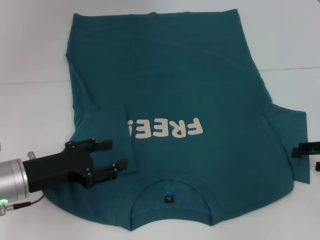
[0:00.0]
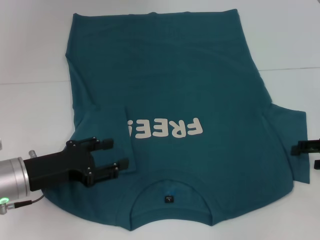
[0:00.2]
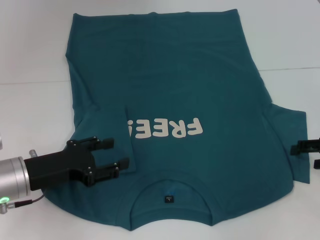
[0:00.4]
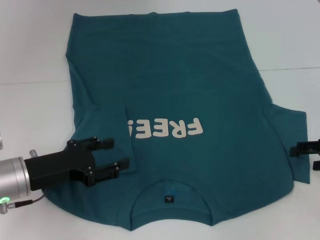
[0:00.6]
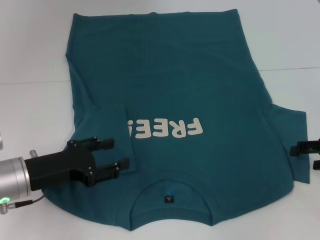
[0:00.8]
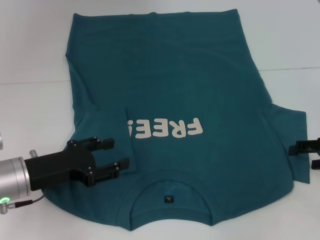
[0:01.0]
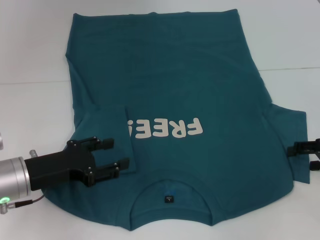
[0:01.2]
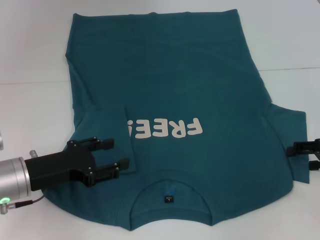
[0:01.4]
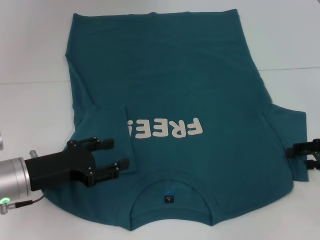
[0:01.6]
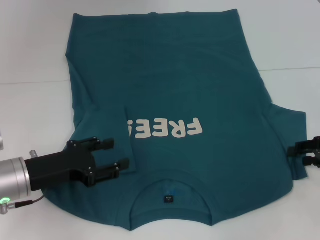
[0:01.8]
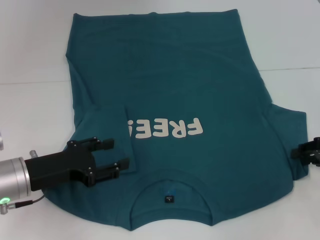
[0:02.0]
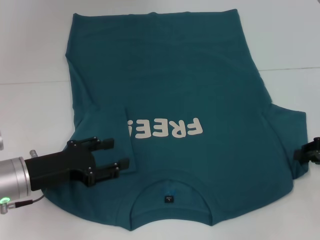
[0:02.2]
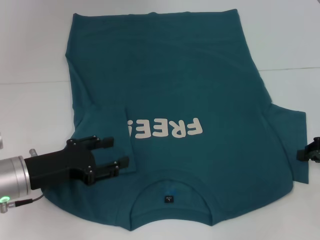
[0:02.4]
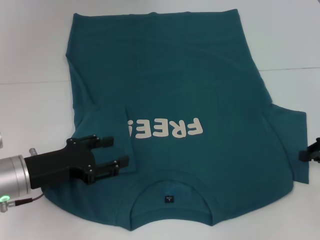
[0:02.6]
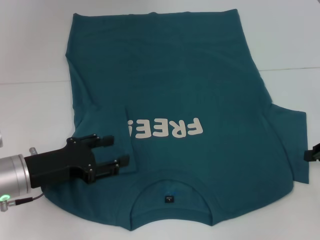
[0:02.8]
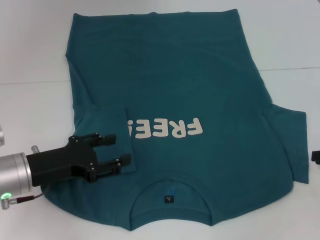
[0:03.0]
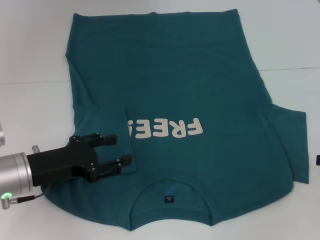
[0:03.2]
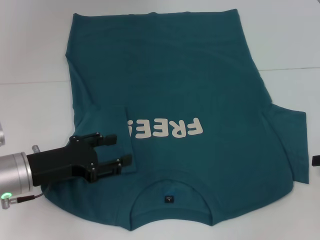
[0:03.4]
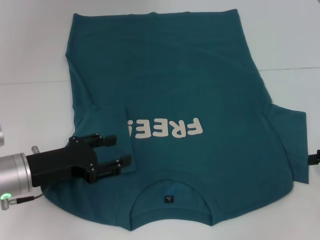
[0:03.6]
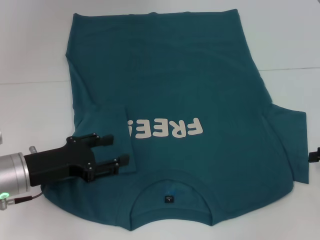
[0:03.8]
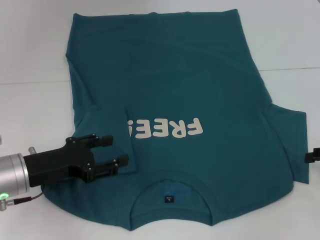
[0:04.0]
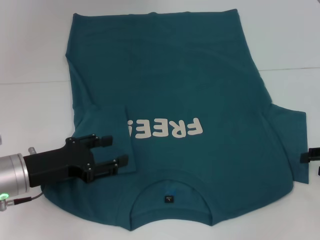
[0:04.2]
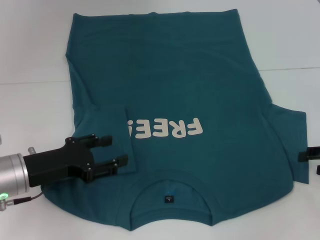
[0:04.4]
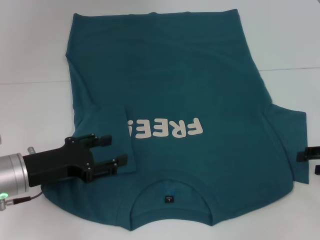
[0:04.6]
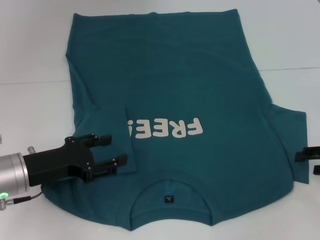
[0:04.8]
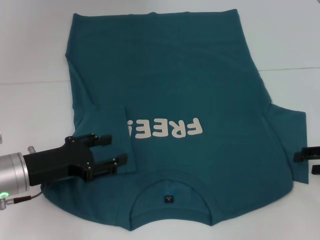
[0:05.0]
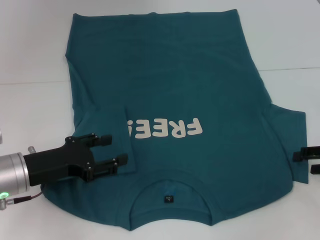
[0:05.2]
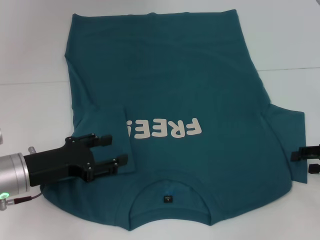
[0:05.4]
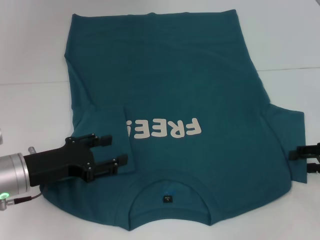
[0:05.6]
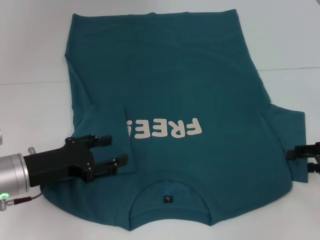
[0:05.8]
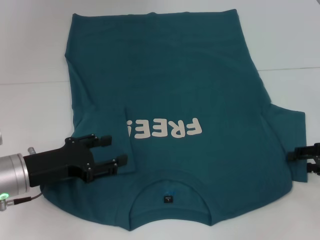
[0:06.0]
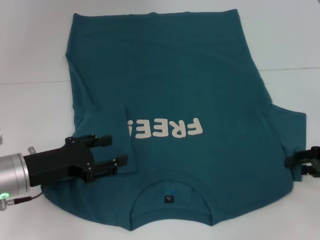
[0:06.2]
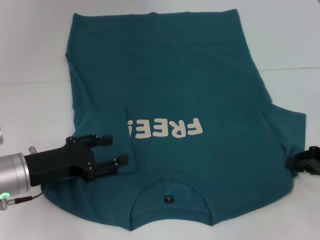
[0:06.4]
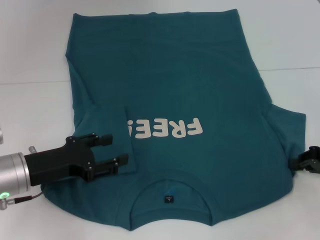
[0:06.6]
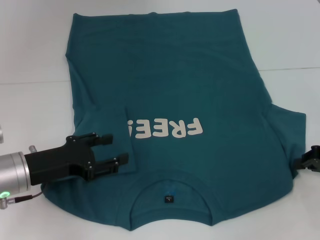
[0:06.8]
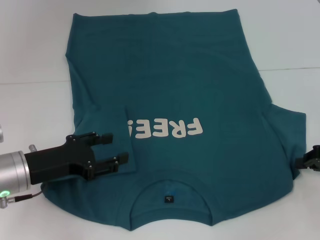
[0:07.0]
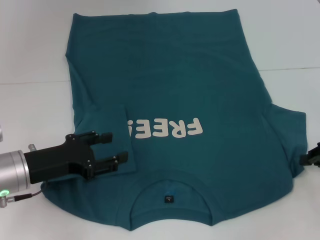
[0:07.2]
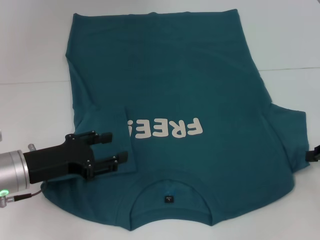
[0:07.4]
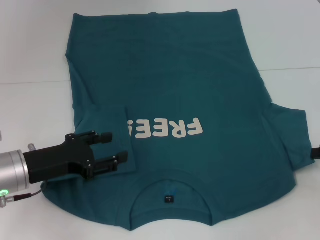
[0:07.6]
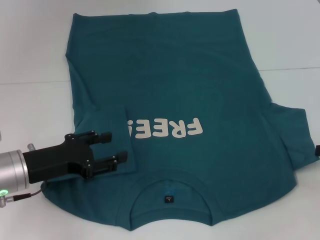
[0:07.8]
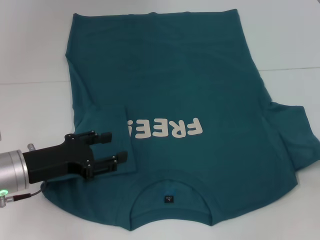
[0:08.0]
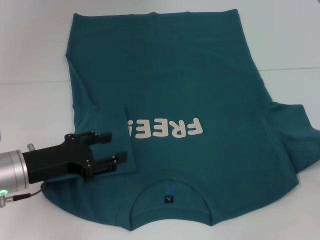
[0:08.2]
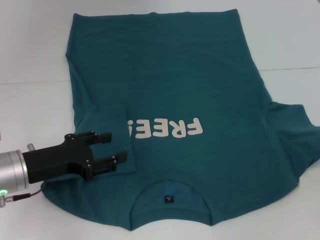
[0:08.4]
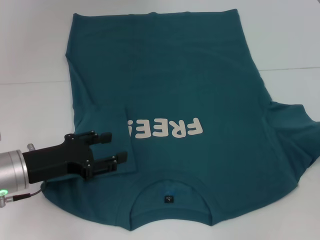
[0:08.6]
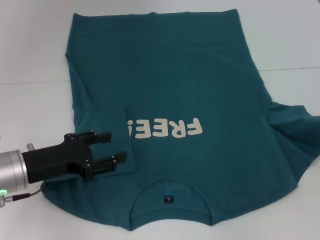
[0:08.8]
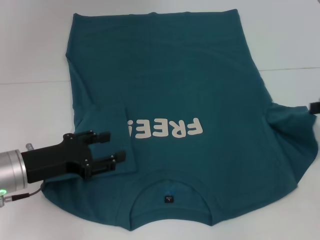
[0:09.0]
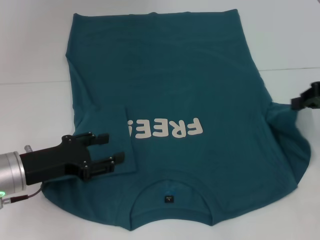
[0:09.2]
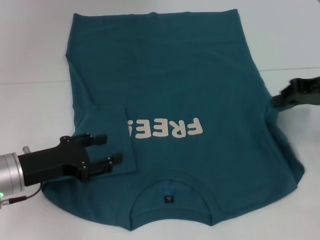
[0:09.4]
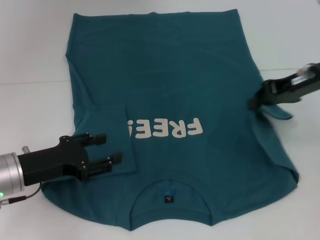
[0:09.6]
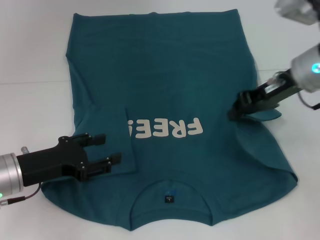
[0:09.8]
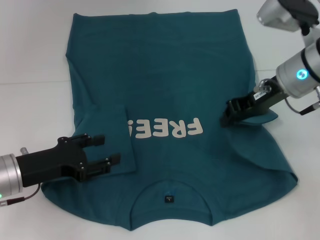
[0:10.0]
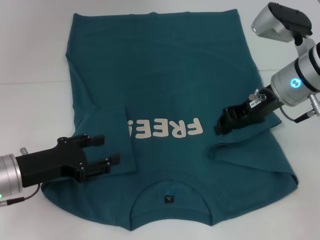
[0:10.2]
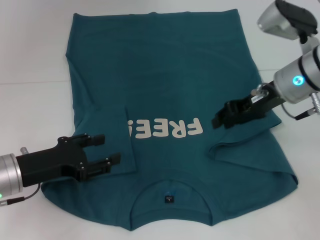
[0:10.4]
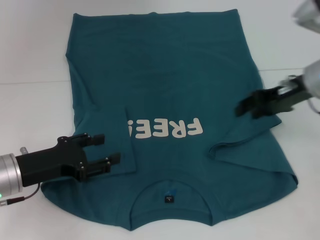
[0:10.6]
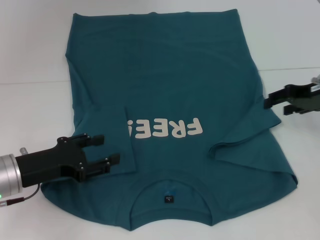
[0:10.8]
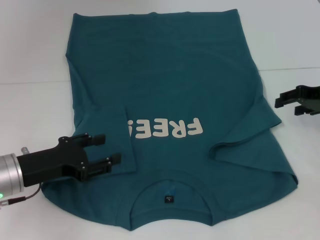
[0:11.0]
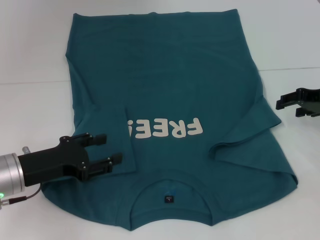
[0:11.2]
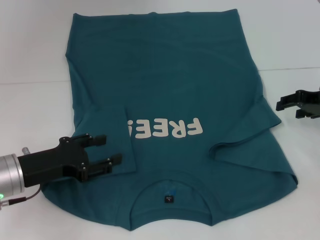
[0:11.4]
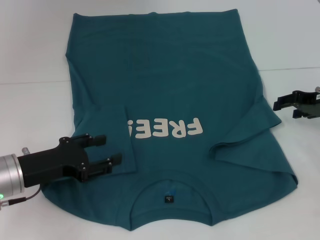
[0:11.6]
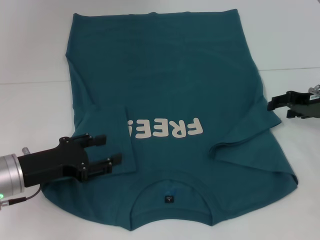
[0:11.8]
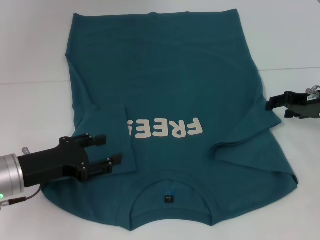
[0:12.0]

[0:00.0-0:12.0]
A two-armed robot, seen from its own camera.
0:00.0 to 0:01.6: Both grippers stay about where they are.
0:01.6 to 0:03.0: The right gripper closes its fingers.
0:04.4 to 0:06.0: The grippers stay close to where they were, moving slightly.
0:06.0 to 0:07.6: The right gripper closes.
0:07.6 to 0:09.0: The right gripper moves upward, about 10 cm.
0:09.0 to 0:10.4: The right gripper goes some 15 cm to the left.
0:10.4 to 0:12.0: The right gripper travels to the right and downward by about 10 cm, and opens up.

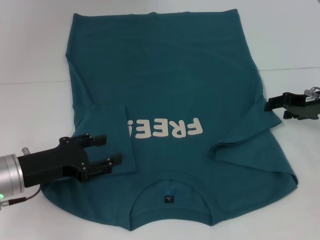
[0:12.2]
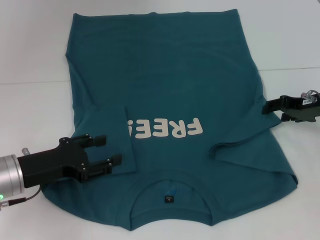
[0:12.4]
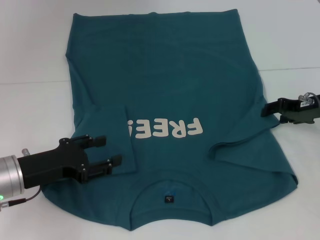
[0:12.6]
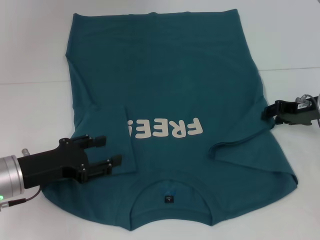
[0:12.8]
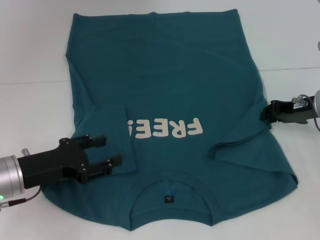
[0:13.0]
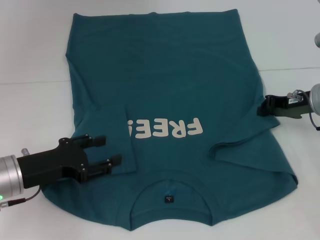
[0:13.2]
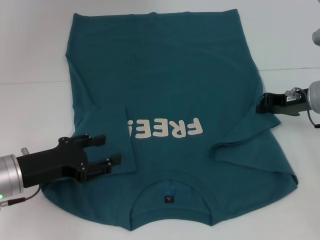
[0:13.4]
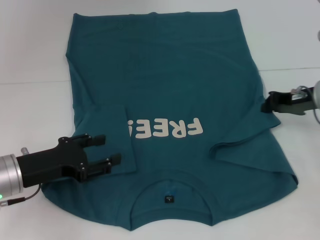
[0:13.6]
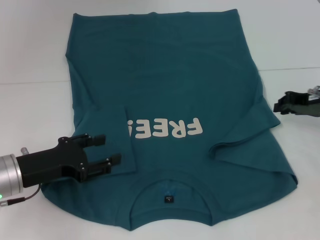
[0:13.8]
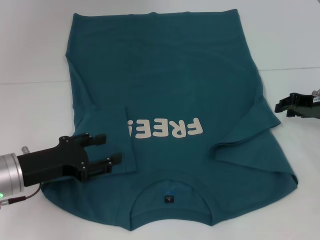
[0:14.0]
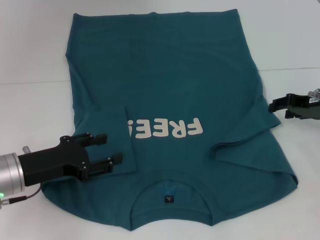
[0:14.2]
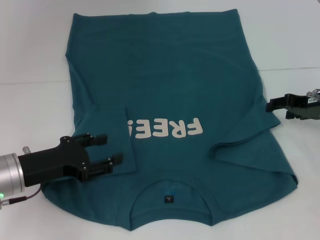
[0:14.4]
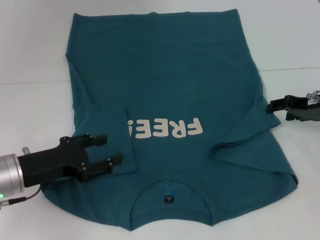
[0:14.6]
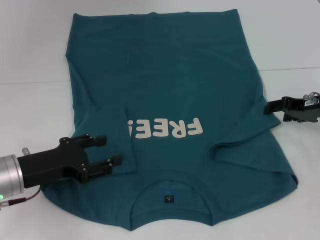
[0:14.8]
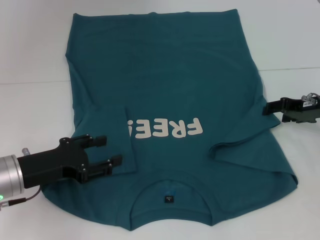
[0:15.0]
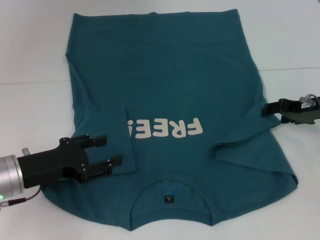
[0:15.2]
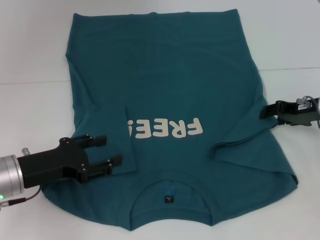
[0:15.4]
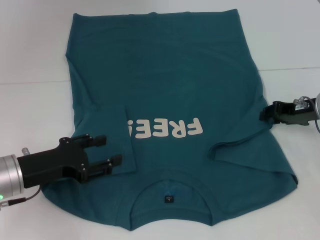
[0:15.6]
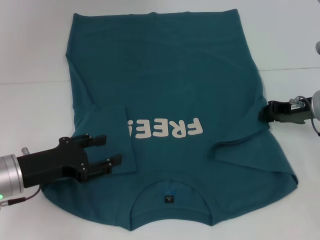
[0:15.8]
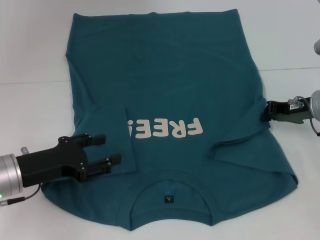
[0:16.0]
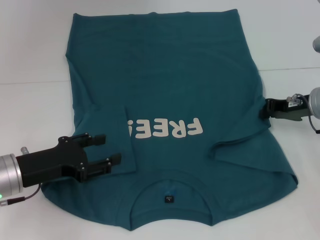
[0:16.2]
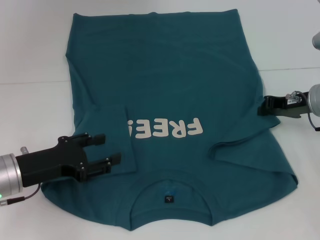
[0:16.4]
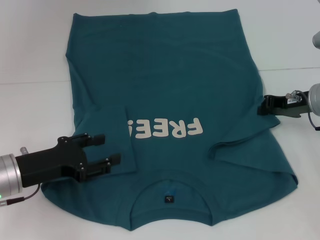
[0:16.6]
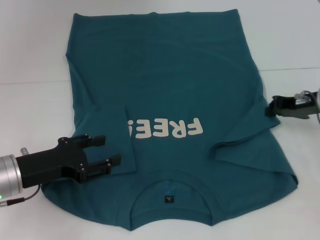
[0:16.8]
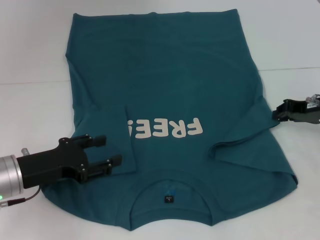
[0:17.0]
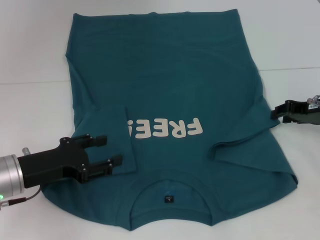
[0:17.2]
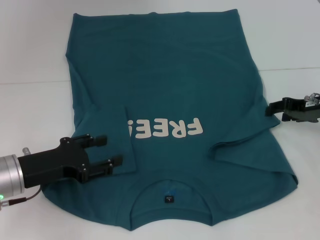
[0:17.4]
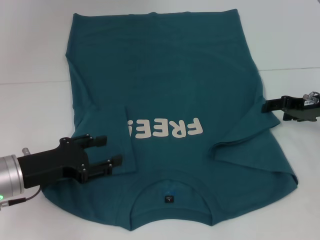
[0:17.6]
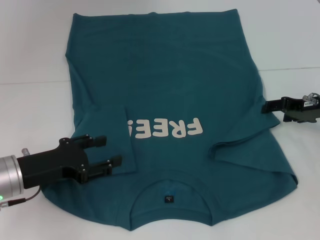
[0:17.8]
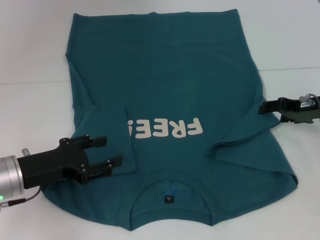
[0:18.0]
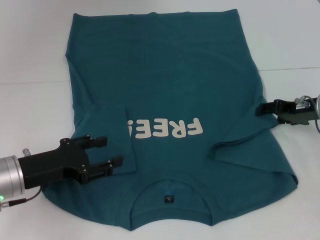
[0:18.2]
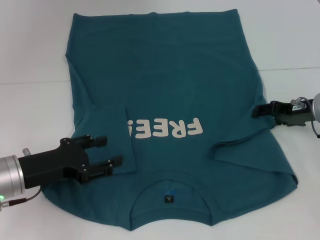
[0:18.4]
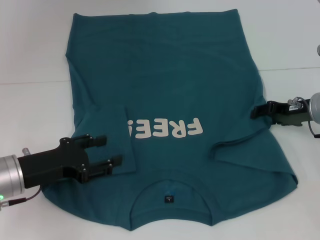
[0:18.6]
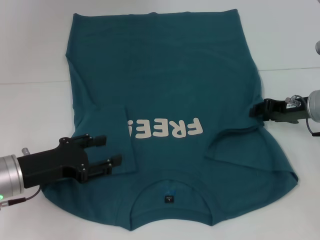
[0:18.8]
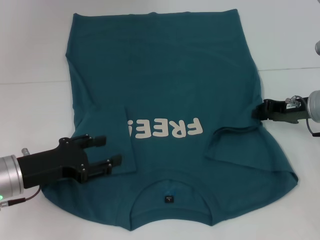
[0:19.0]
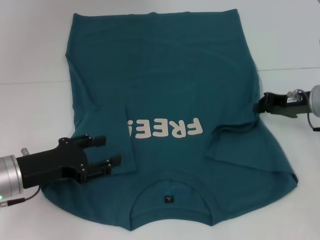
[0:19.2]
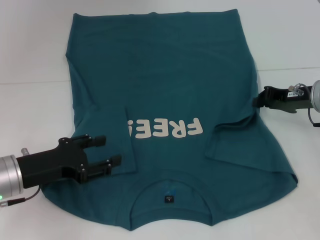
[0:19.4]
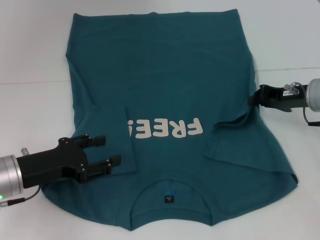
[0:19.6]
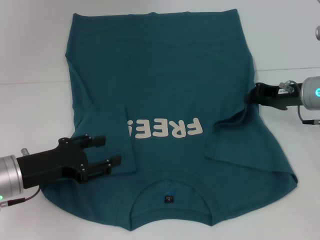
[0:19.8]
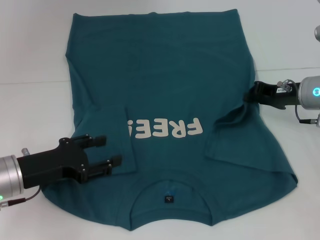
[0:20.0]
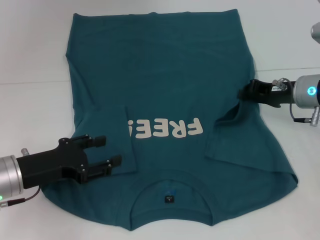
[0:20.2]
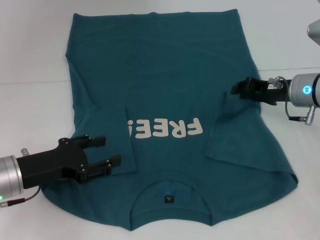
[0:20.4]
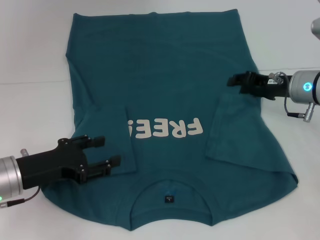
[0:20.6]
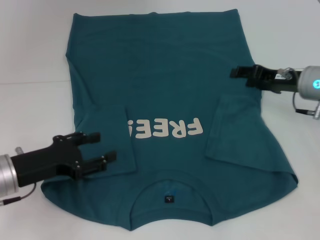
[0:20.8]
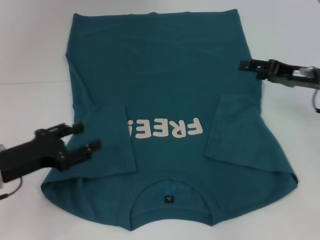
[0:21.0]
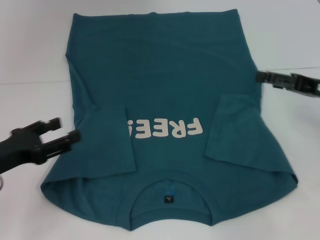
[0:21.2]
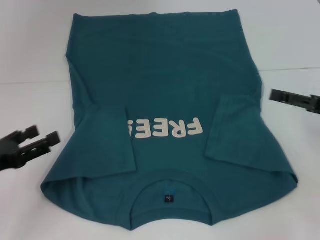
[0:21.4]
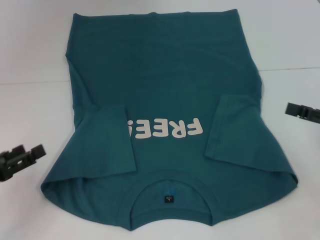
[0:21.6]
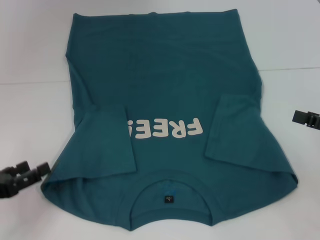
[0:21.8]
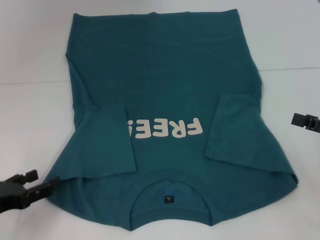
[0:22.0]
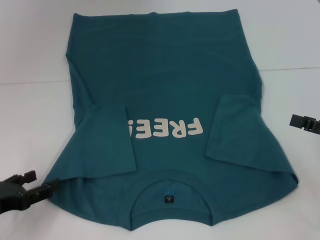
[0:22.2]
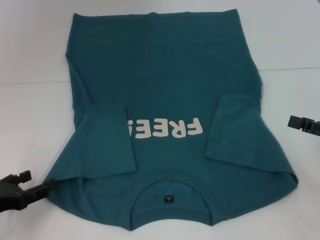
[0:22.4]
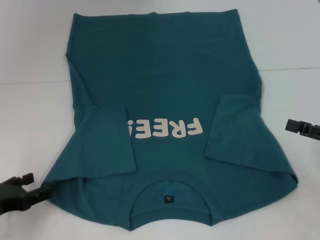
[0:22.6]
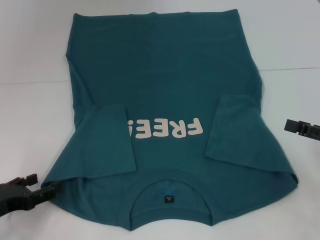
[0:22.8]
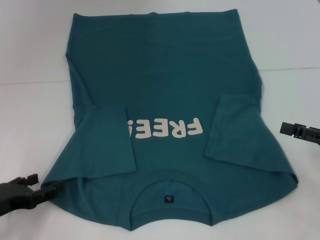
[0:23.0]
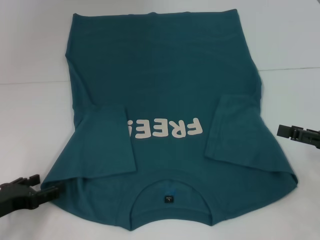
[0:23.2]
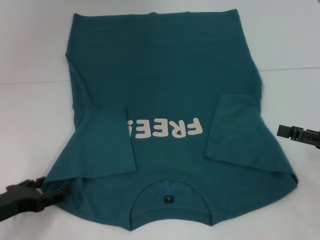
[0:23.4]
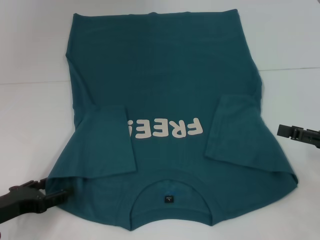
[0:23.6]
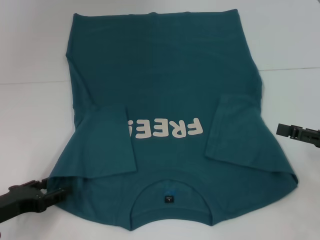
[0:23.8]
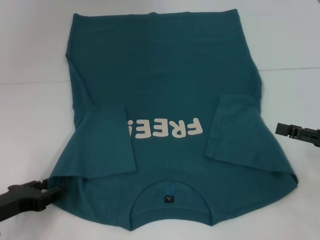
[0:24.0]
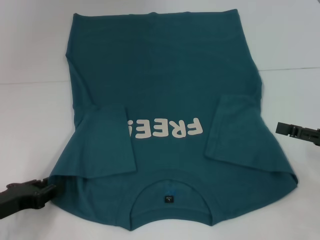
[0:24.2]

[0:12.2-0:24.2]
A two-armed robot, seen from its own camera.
Step, 0:12.2 to 0:20.4: Fold the bottom right sleeve to the right.
0:12.2 to 0:13.8: The right gripper closes.
0:13.8 to 0:15.2: The right gripper opens.
0:15.2 to 0:16.6: The right gripper closes its fingers.
0:16.6 to 0:18.2: The right gripper opens its fingers.
0:18.2 to 0:19.8: The right gripper closes up.
0:19.8 to 0:21.2: The right gripper goes some 5 cm backward, and opens its fingers, while the left gripper changes place by about 5 cm.
0:21.2 to 0:22.6: The left gripper shifts some 5 cm downward; the right gripper heads backward, covering approximately 10 cm.
0:22.6 to 0:24.2: The grippers make only small movements.
